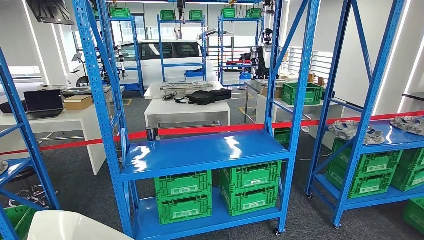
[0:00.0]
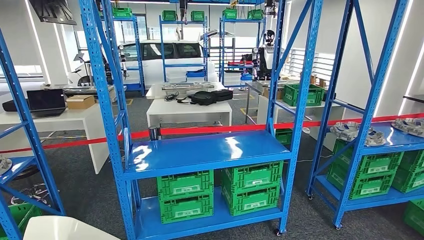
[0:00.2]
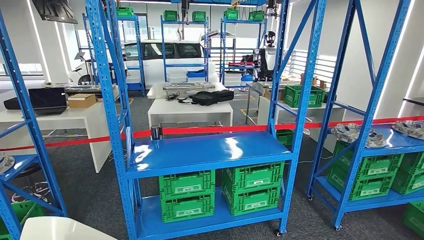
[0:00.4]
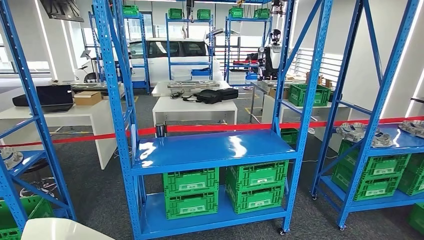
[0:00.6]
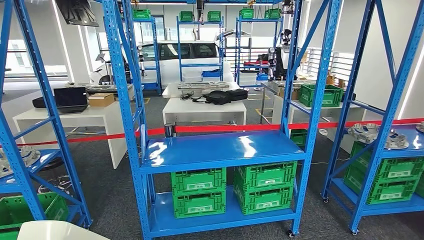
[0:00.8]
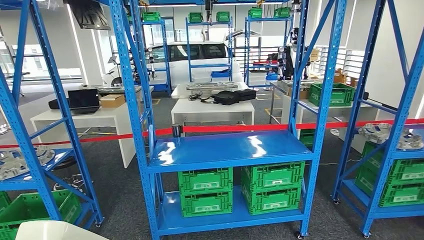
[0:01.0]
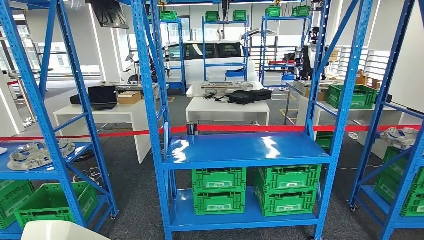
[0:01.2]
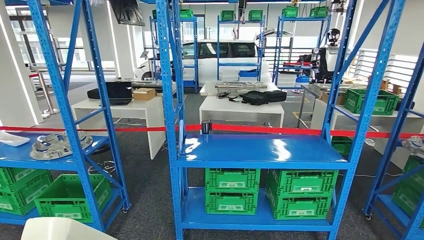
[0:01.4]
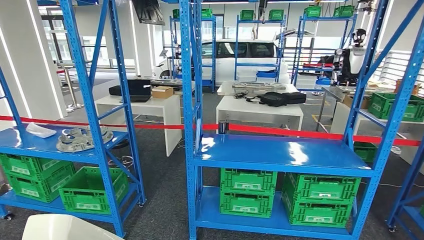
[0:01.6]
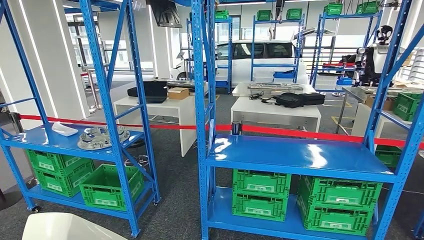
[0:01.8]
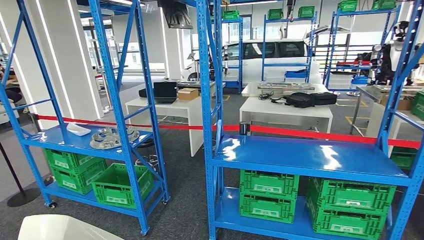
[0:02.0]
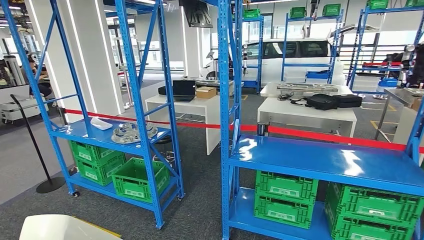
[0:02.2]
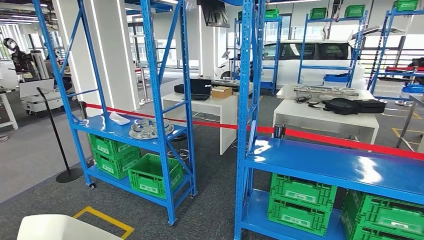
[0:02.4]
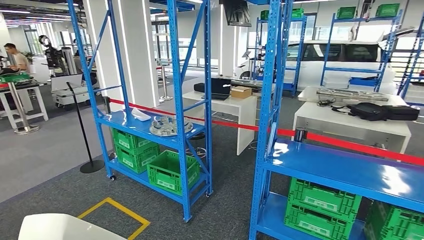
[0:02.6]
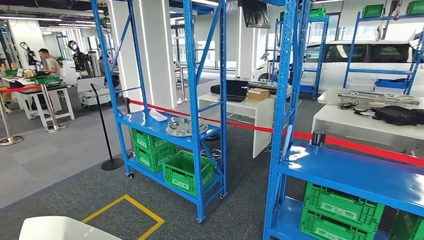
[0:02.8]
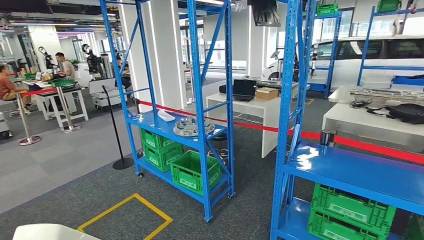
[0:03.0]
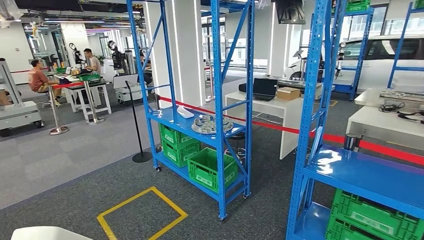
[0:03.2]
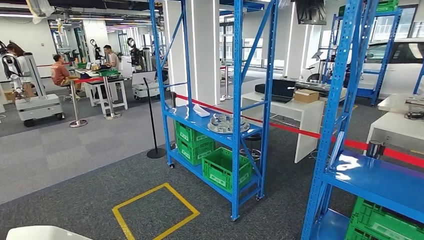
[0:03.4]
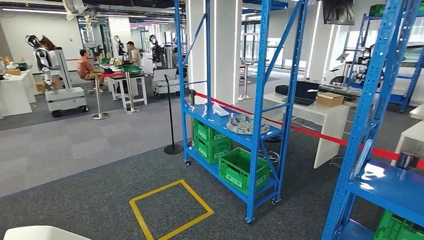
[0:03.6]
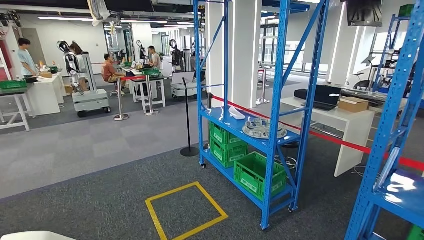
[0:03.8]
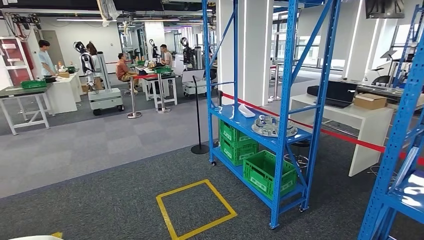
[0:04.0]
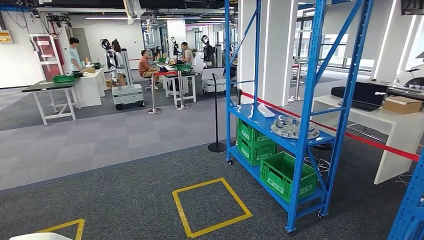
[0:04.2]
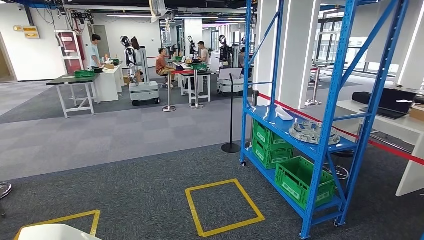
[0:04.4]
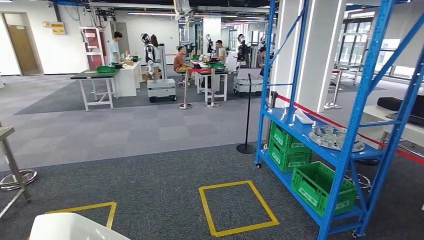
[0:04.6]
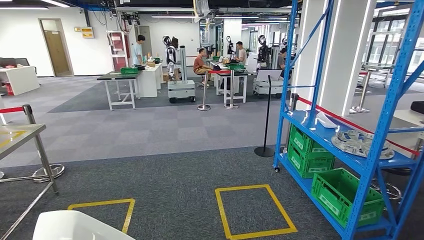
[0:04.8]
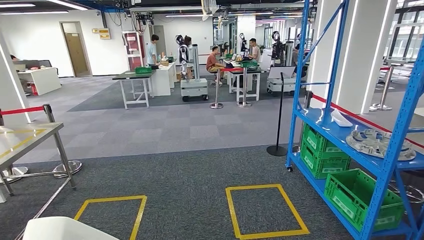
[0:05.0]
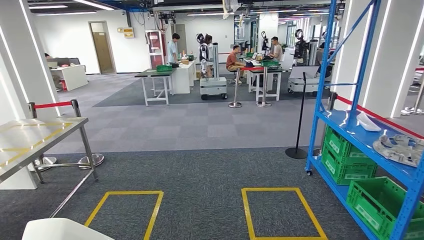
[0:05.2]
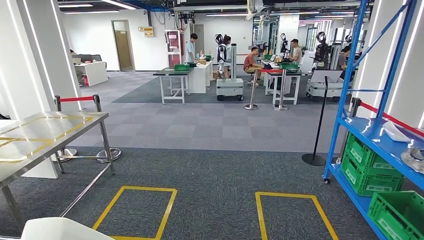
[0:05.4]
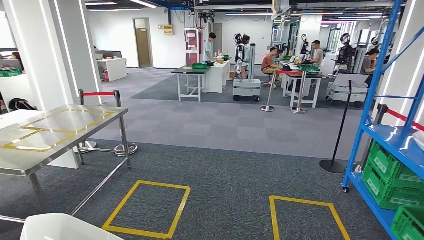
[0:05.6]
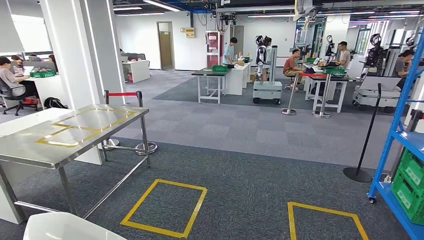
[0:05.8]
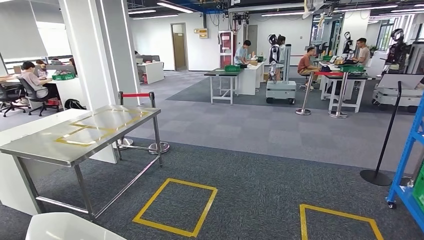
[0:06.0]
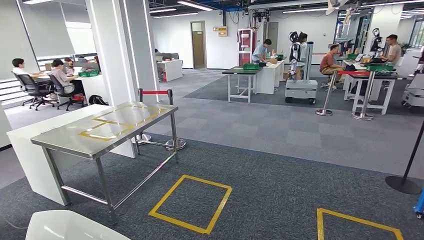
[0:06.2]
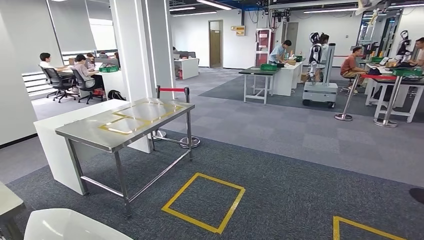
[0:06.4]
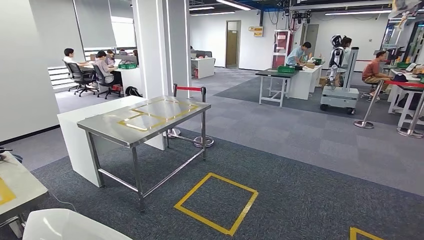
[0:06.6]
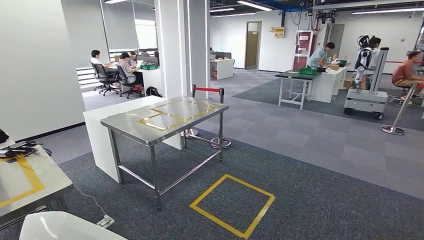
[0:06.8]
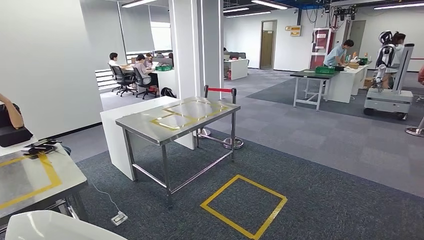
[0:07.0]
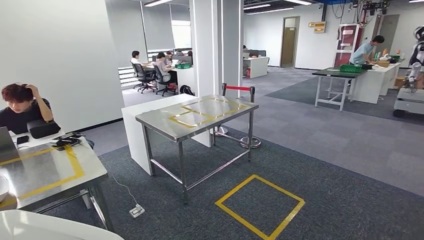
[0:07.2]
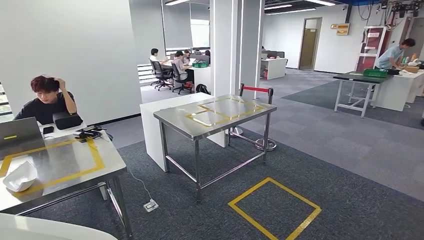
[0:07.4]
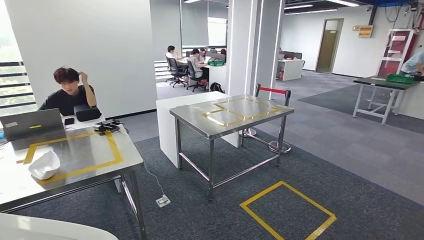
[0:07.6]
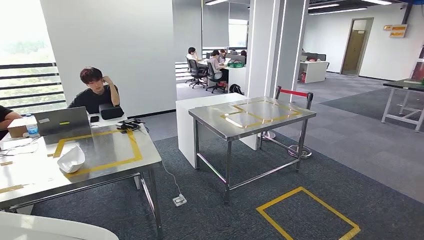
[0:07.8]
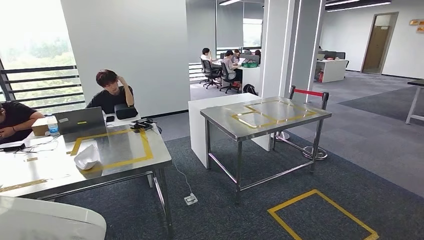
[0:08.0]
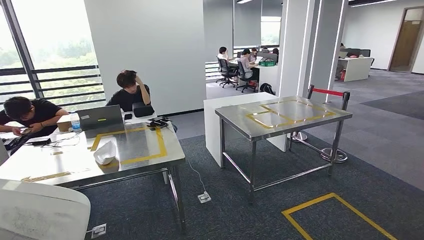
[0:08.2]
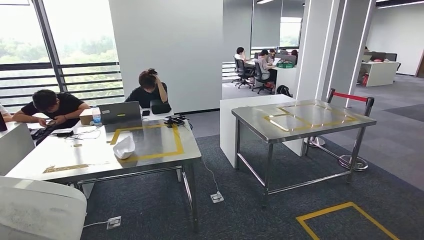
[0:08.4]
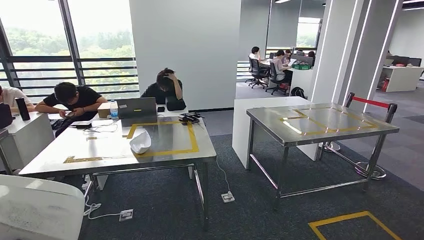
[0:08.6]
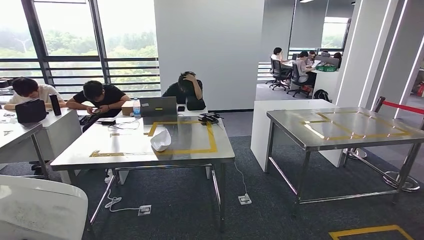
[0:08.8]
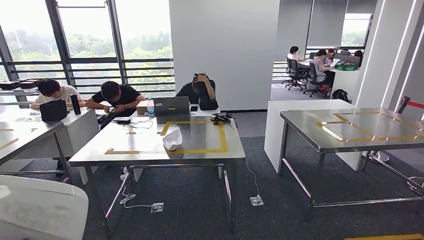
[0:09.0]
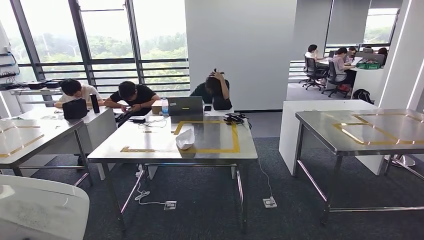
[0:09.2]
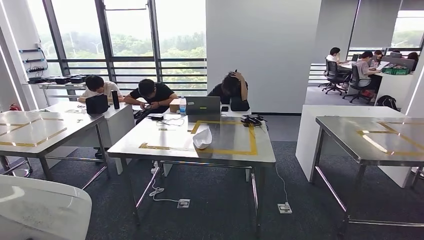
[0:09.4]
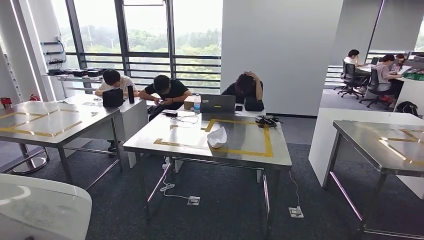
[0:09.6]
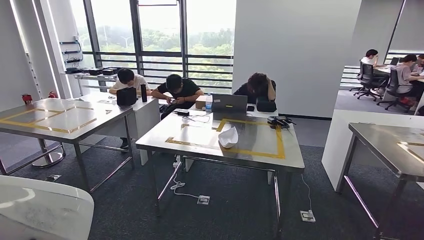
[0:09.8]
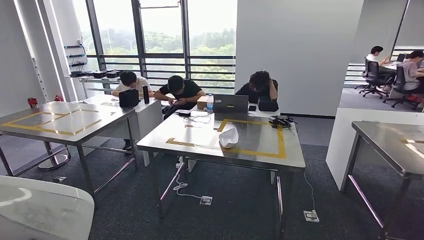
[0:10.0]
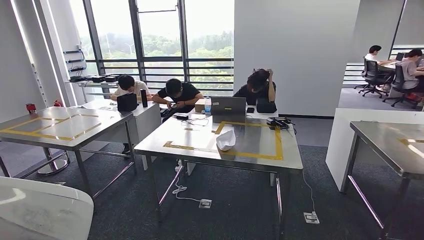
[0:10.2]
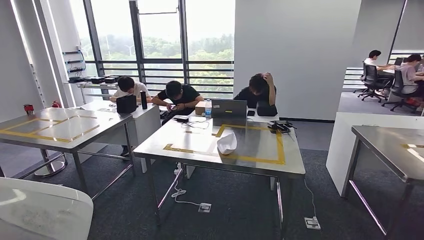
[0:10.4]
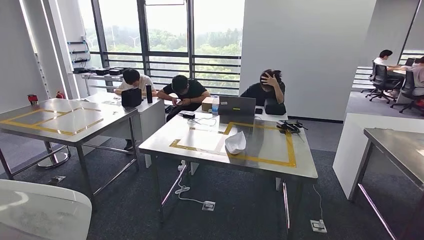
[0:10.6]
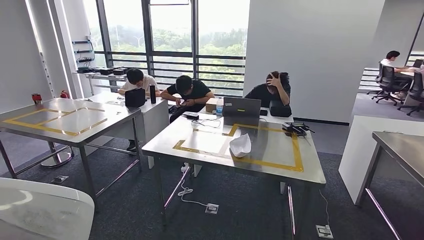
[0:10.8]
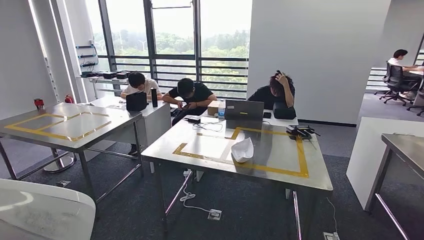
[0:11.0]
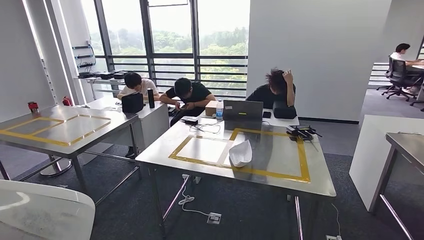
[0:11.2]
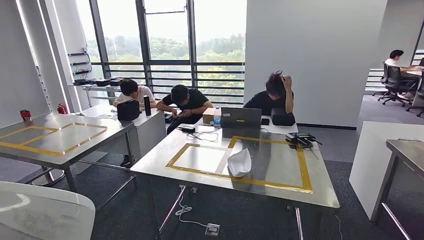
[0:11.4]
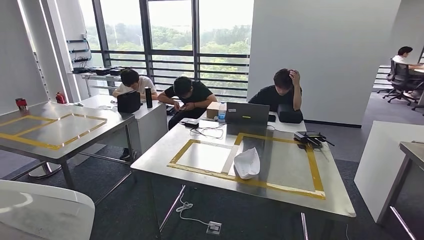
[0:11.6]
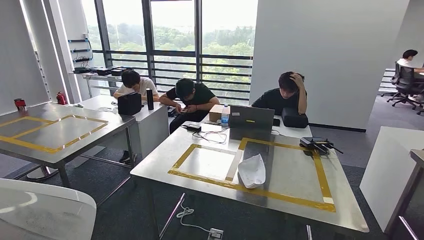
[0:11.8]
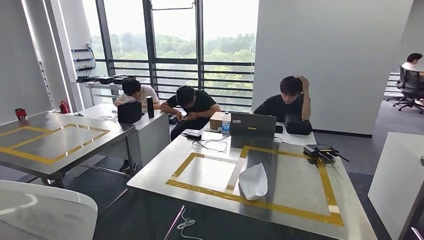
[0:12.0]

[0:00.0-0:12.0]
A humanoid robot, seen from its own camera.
Step, 0:00.0 to 0:09.0: Move the small component to the workbench.

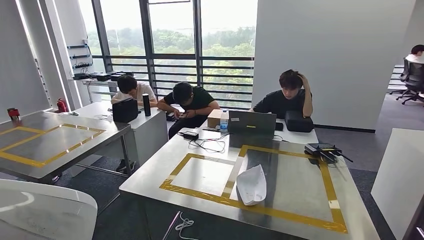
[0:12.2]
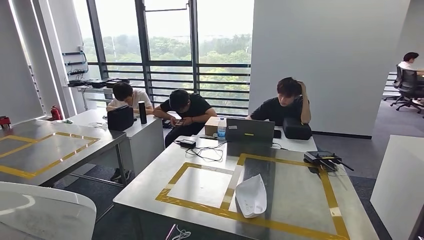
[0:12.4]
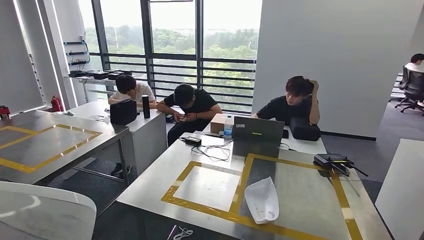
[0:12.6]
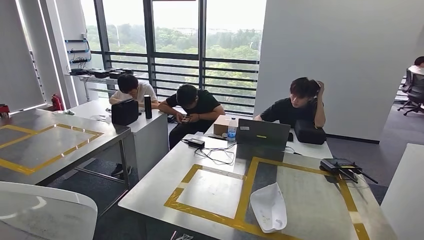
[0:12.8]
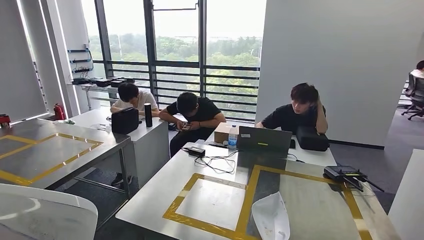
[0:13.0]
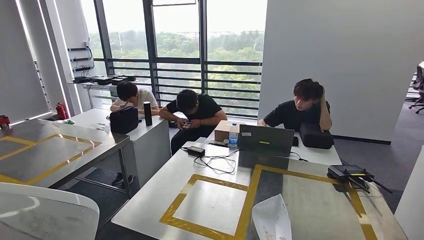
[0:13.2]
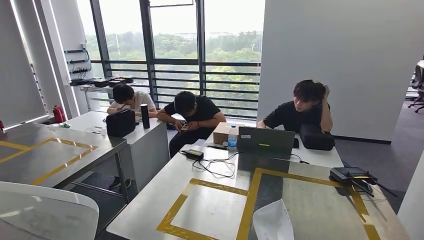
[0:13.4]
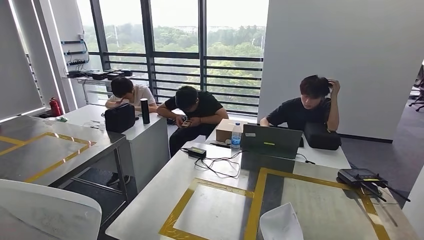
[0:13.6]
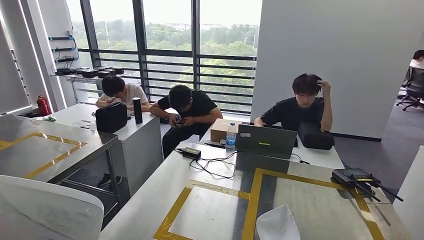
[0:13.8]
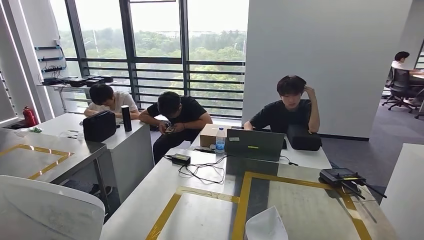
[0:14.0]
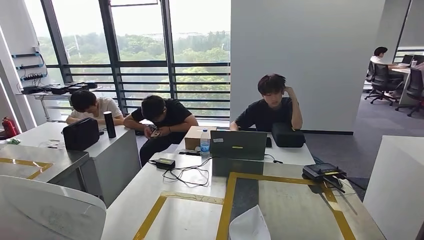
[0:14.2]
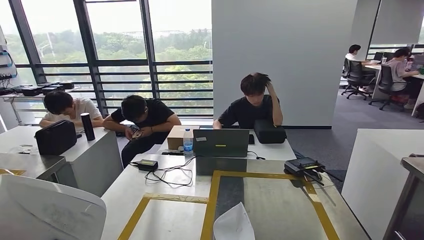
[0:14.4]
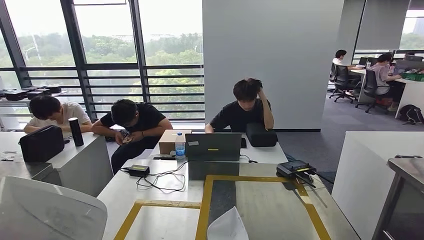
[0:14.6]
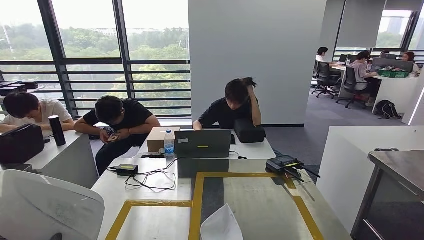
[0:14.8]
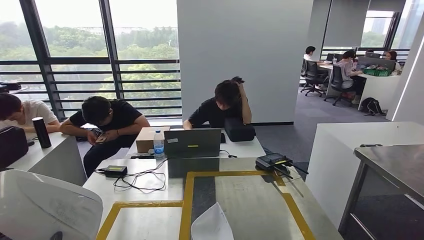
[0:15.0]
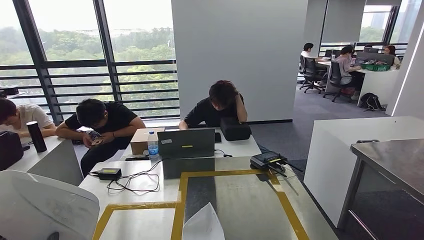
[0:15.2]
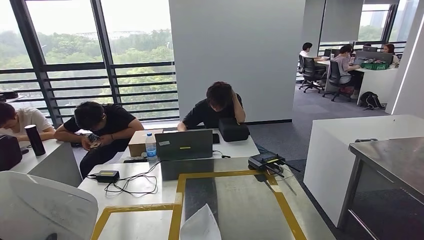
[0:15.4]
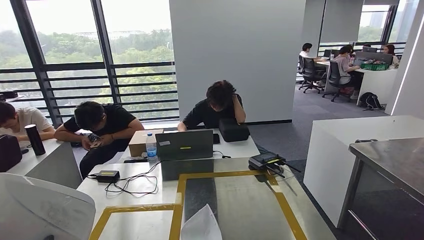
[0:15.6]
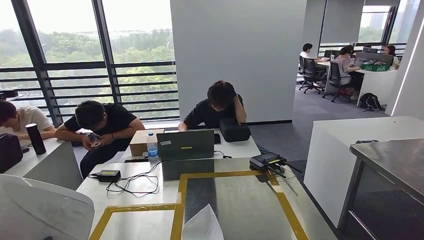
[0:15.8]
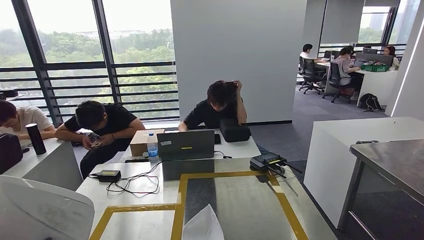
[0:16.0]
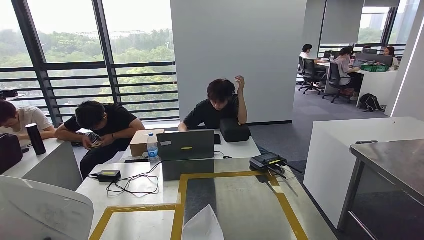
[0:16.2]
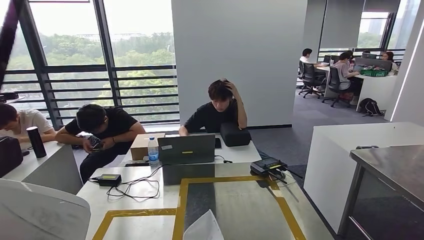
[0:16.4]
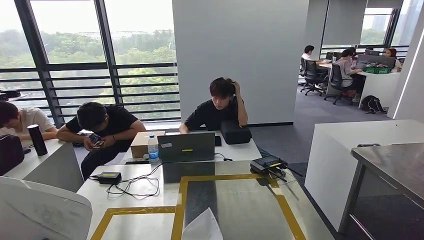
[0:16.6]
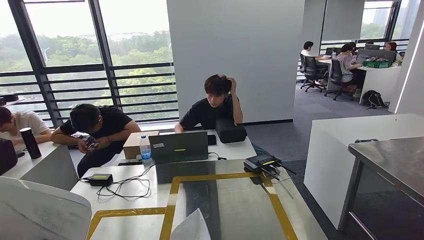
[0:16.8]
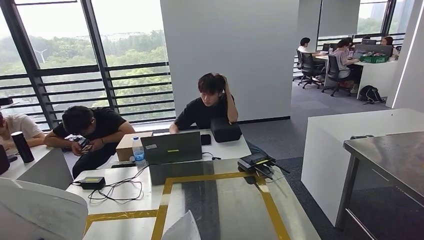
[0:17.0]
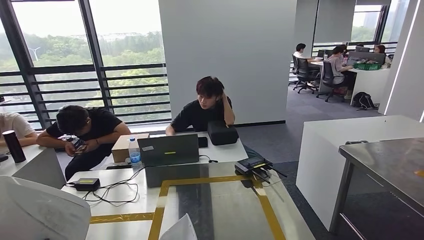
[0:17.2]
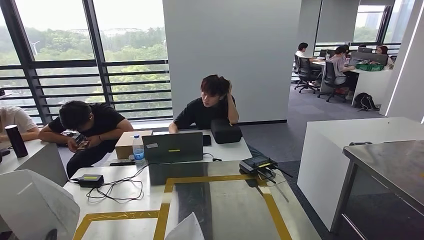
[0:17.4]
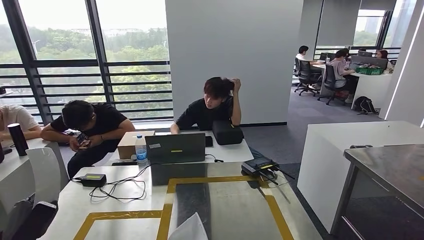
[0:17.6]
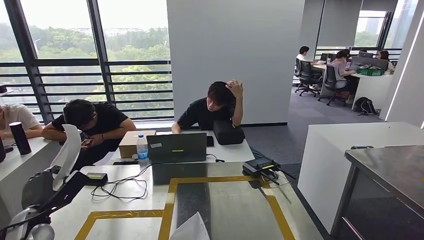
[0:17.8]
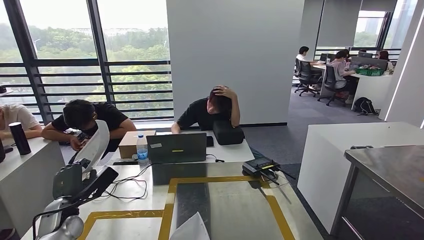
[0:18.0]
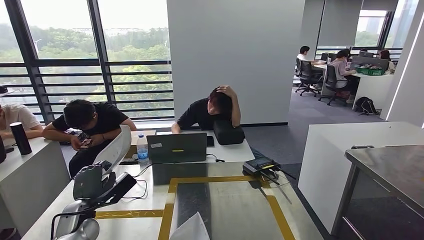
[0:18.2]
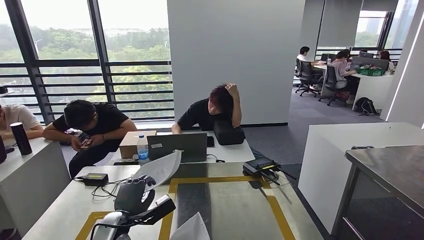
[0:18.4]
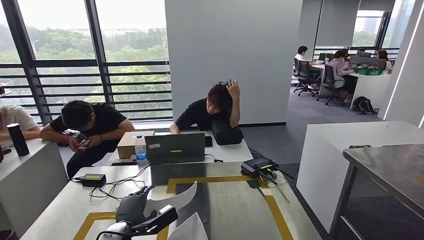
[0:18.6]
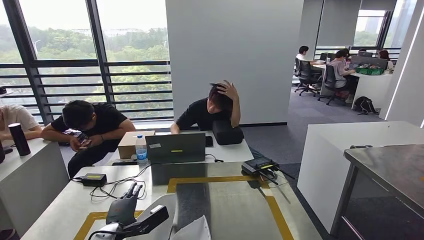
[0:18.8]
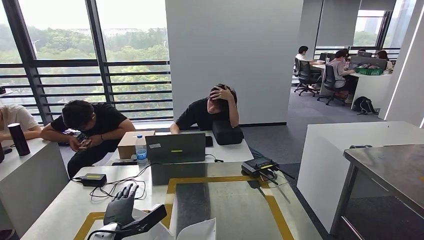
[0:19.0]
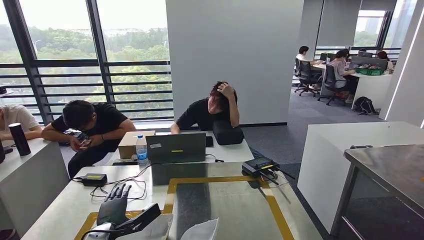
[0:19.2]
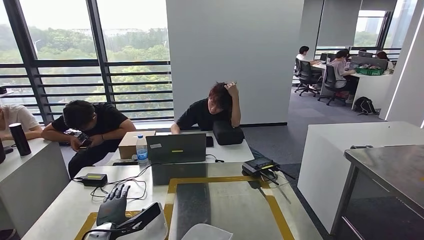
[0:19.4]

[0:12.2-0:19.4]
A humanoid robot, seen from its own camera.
0:18.0 to 0:19.4: The left hand travels to the right and downward by about 10 cm.
